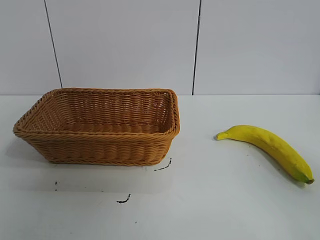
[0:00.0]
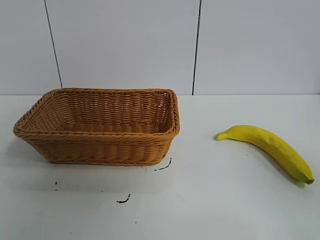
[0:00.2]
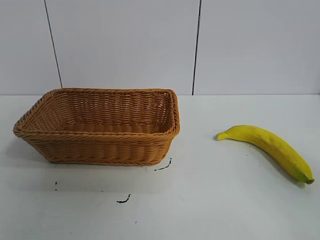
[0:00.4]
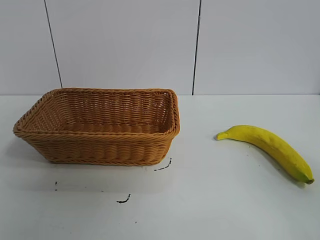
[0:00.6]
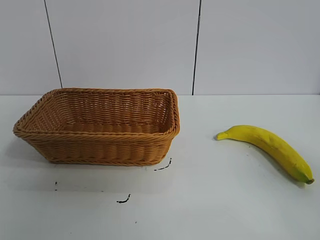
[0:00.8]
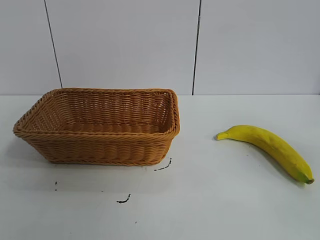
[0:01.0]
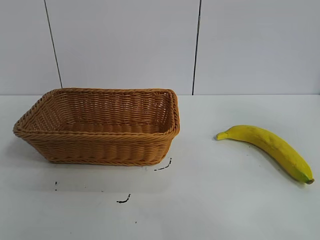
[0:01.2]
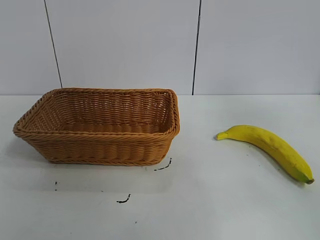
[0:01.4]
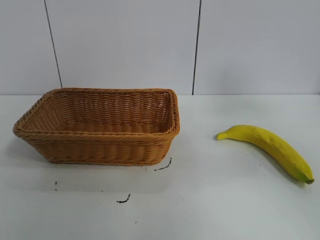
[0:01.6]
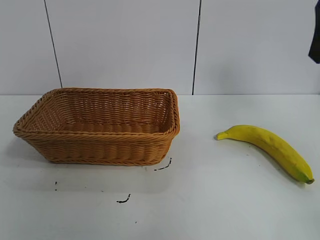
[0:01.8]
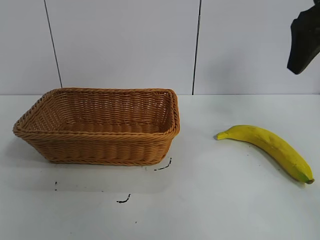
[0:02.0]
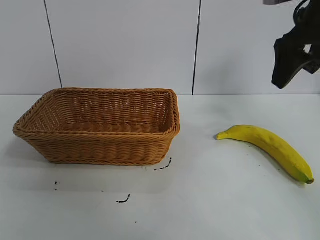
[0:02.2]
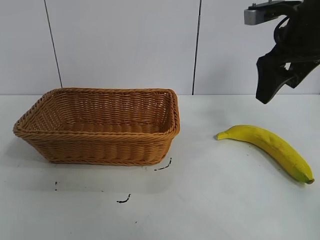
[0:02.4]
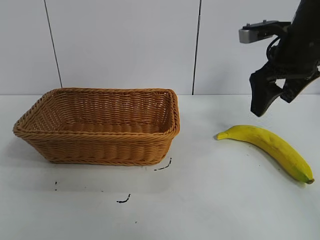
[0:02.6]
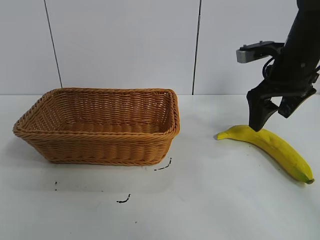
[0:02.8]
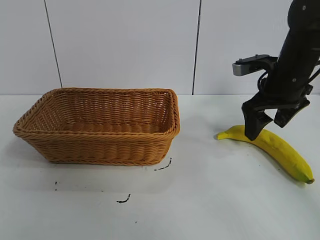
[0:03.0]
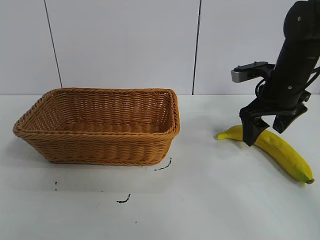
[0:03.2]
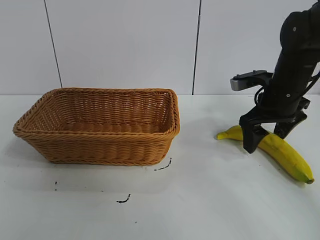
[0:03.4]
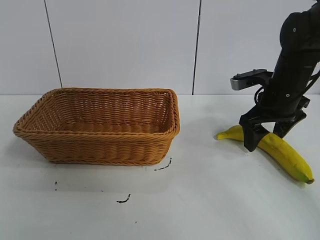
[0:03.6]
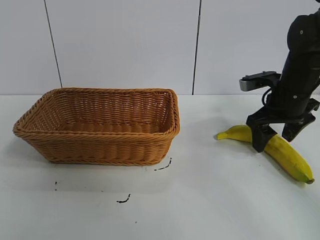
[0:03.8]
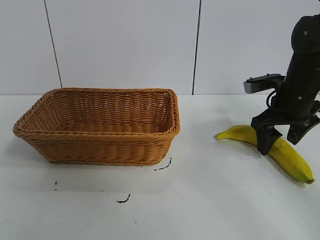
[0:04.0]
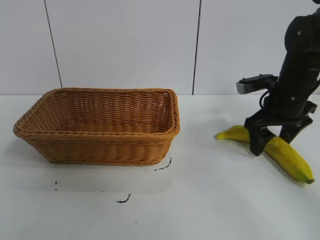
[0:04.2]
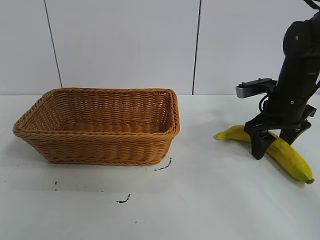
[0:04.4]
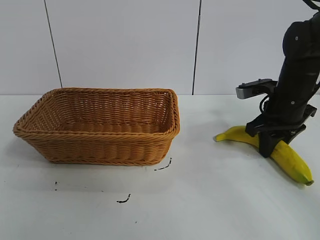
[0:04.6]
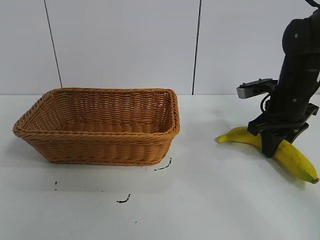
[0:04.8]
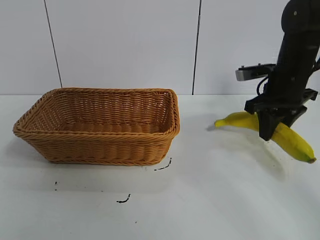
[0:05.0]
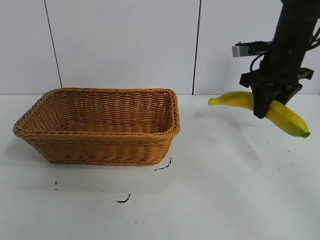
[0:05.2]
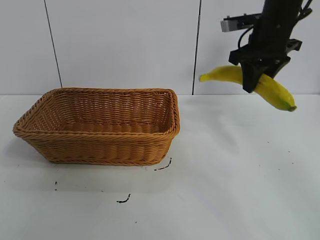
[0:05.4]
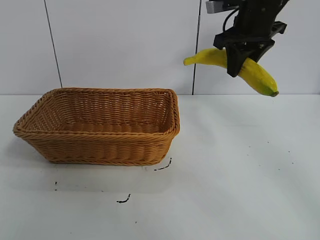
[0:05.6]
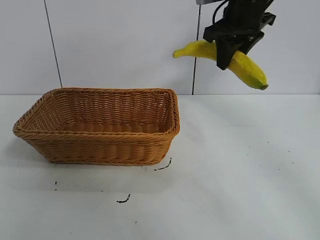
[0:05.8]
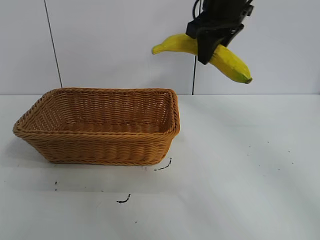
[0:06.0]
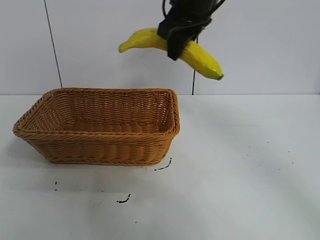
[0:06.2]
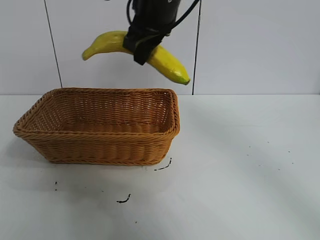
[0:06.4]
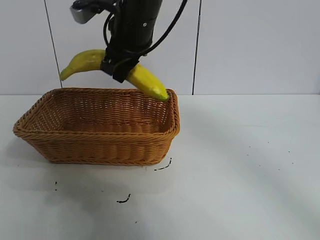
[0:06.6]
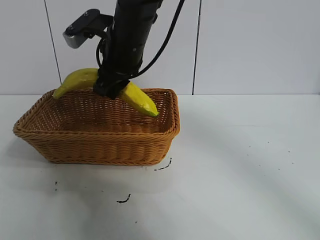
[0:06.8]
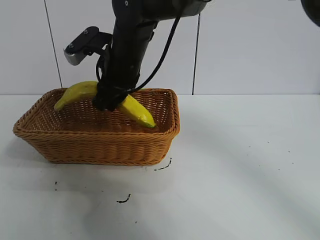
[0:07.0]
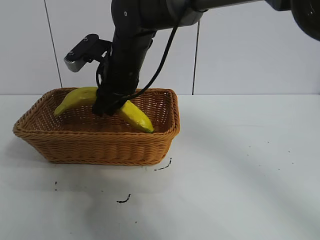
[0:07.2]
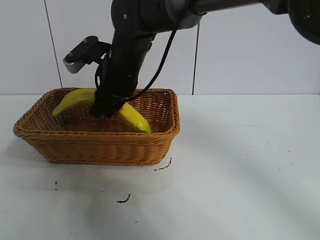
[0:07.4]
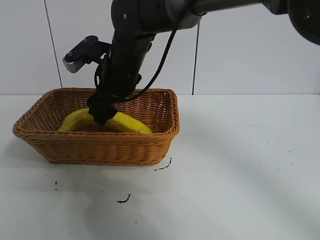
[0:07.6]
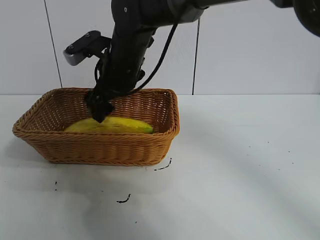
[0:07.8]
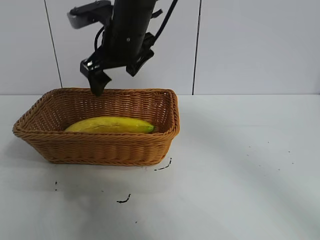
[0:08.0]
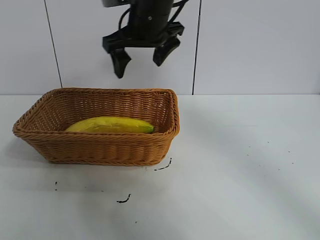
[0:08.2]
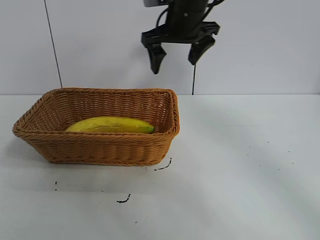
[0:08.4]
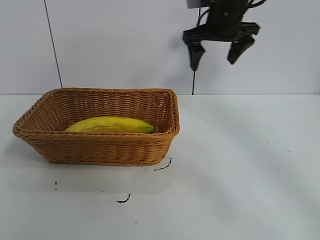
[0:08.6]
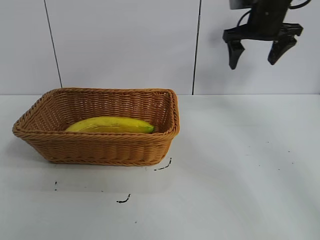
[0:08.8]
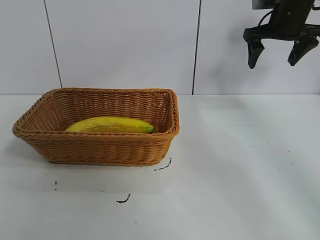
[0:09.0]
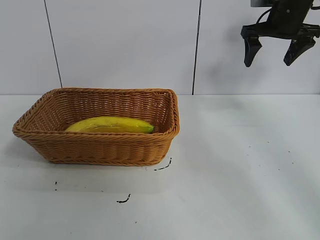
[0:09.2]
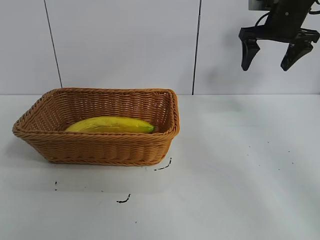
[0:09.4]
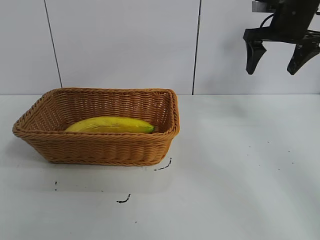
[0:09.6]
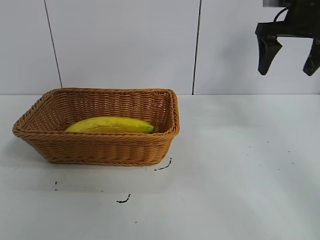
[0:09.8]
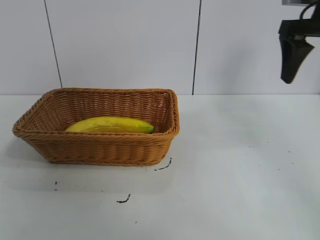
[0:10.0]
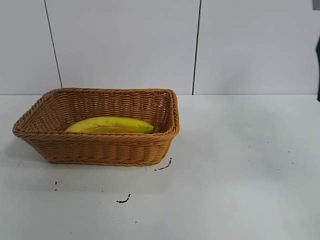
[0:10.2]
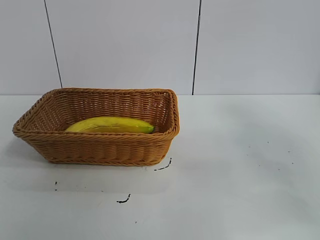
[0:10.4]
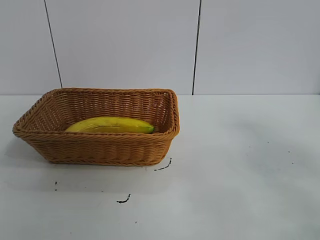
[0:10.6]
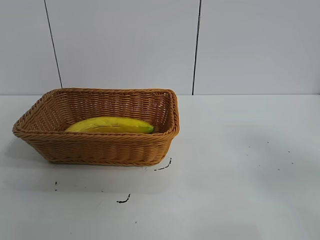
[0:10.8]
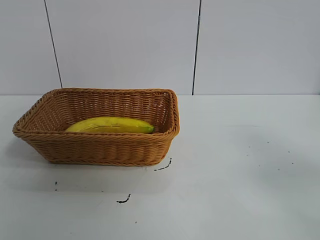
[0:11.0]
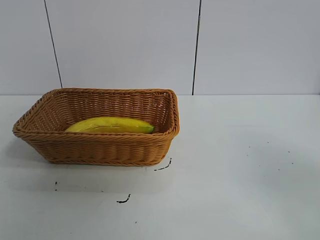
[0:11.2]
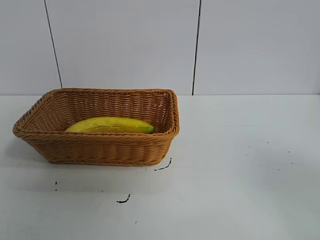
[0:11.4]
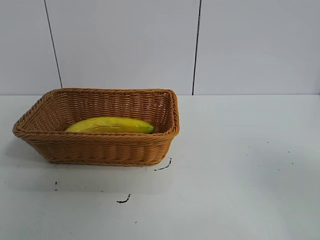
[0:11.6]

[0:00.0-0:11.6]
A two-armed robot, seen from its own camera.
Task of the whole recording: pick up the banana and put it into the basket.
Step, 0:00.8 to 0:04.6: Grasp the banana with right gripper.
Step, 0:04.8 to 0:07.8: Place the banana in the basket with right gripper.
